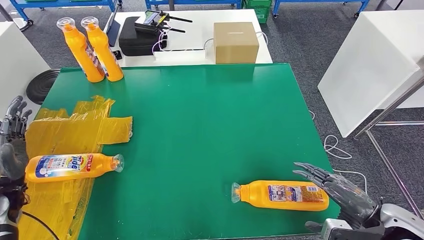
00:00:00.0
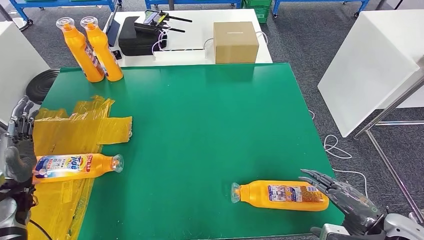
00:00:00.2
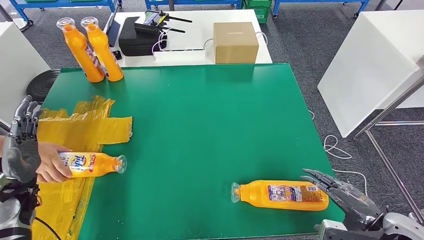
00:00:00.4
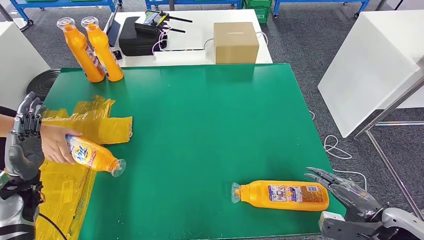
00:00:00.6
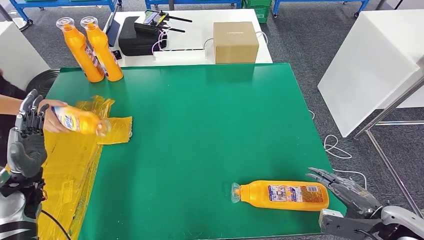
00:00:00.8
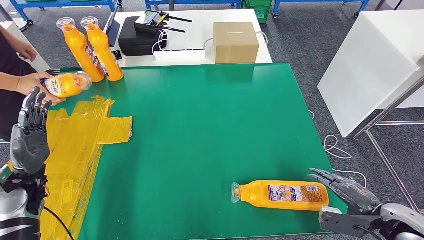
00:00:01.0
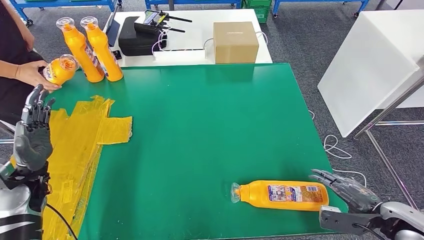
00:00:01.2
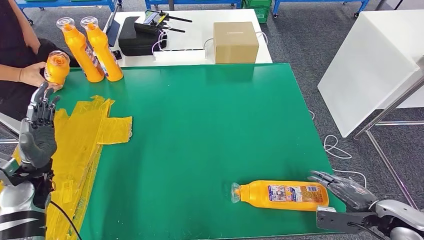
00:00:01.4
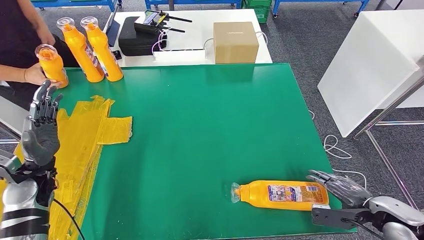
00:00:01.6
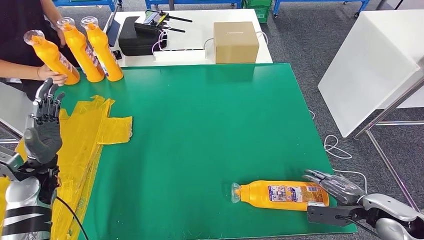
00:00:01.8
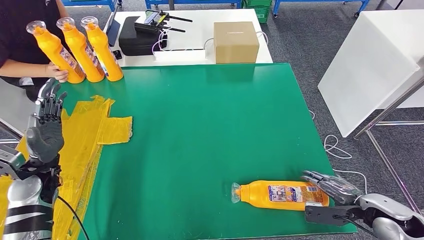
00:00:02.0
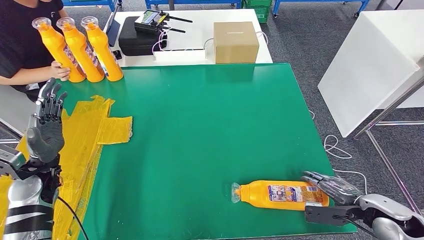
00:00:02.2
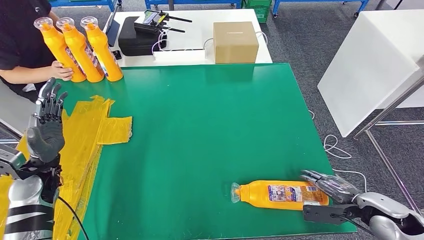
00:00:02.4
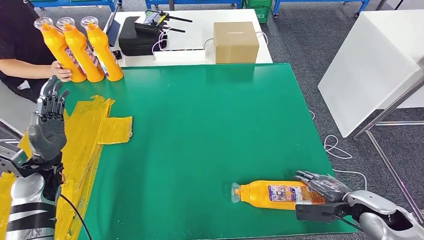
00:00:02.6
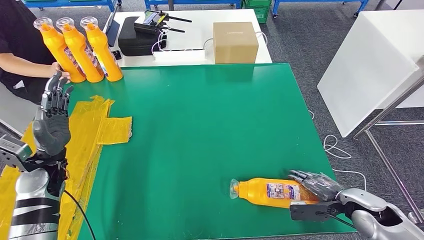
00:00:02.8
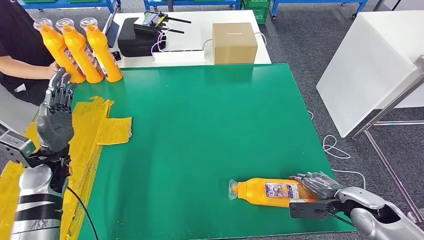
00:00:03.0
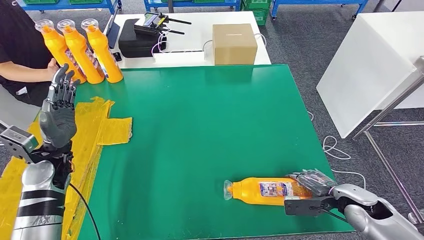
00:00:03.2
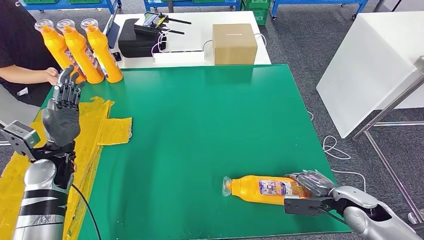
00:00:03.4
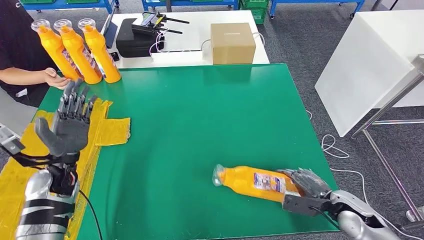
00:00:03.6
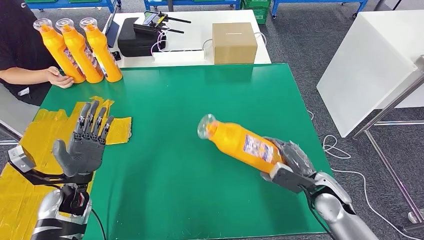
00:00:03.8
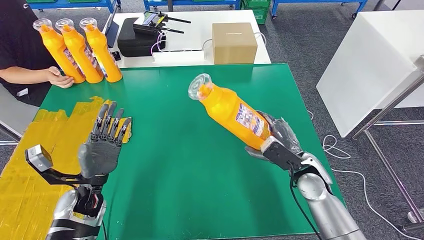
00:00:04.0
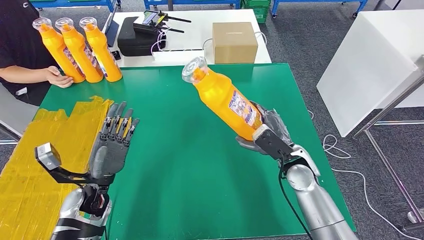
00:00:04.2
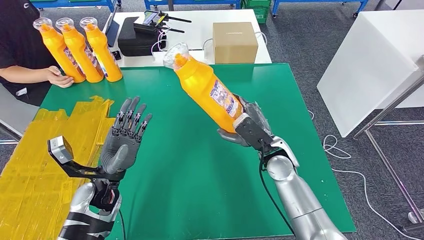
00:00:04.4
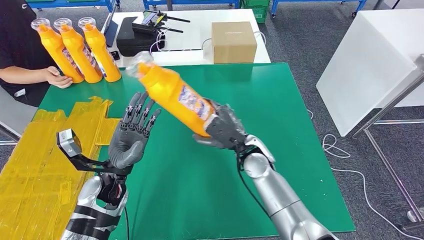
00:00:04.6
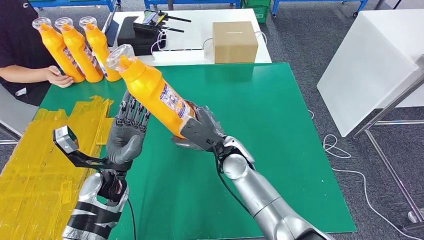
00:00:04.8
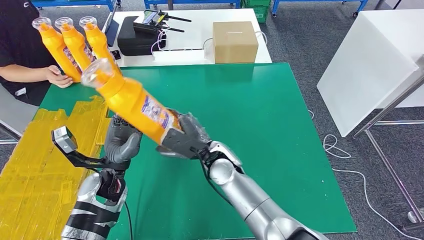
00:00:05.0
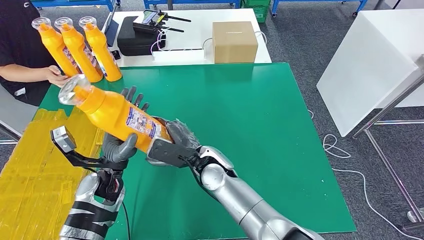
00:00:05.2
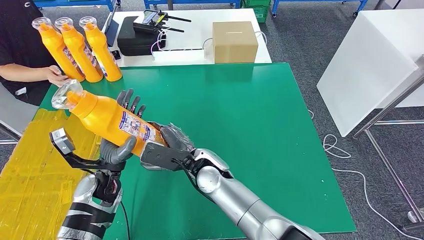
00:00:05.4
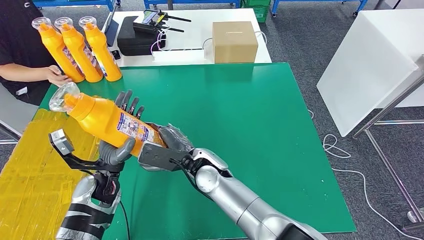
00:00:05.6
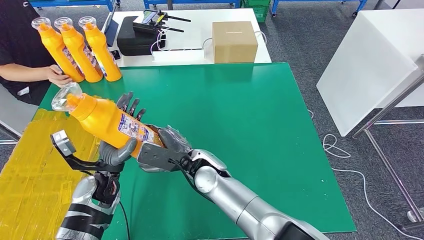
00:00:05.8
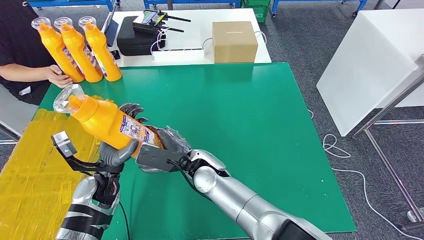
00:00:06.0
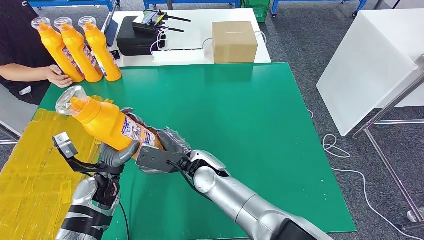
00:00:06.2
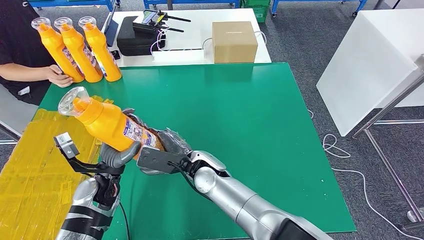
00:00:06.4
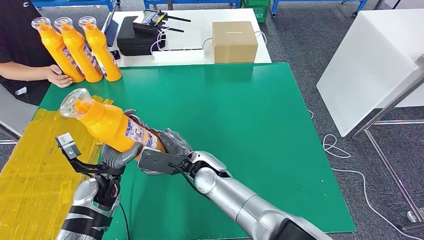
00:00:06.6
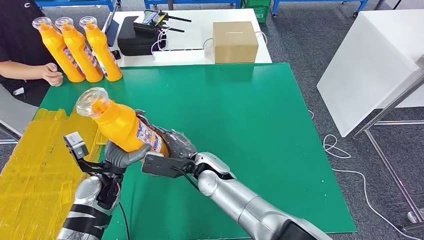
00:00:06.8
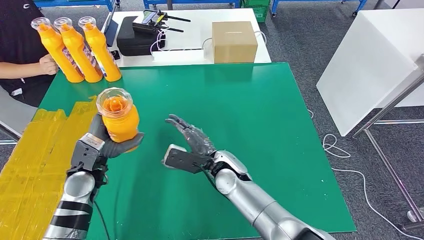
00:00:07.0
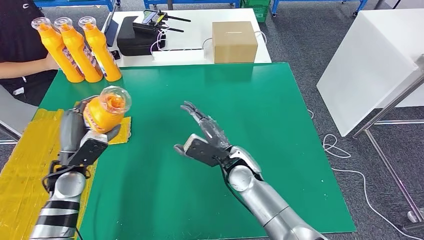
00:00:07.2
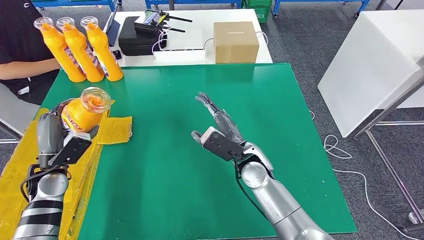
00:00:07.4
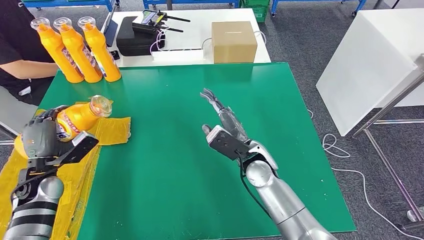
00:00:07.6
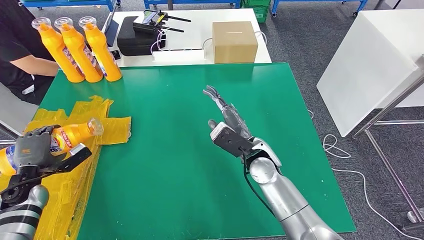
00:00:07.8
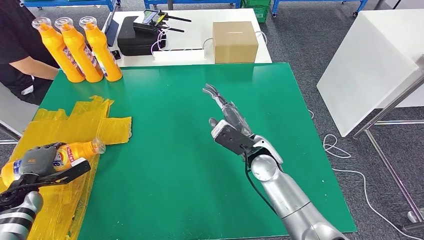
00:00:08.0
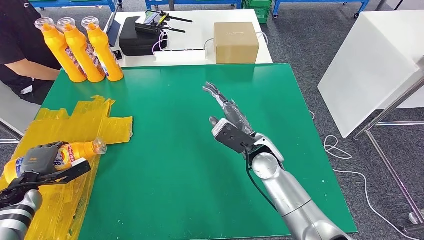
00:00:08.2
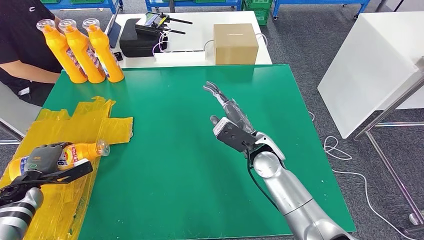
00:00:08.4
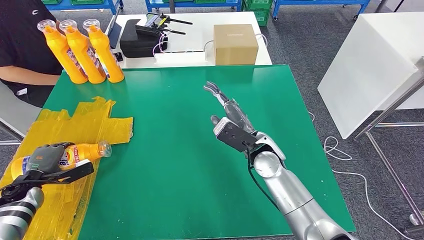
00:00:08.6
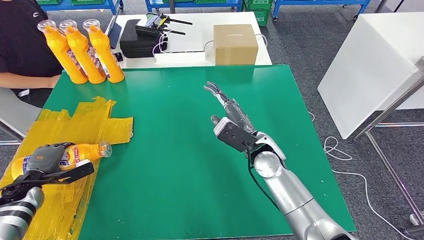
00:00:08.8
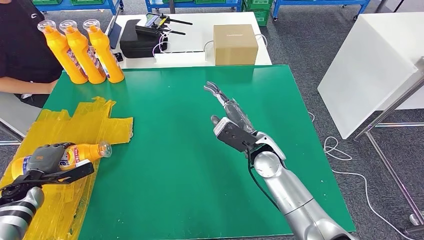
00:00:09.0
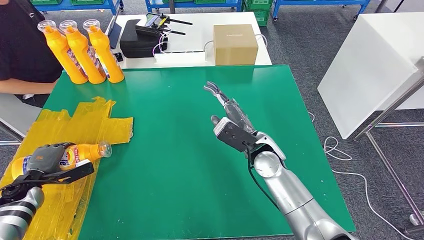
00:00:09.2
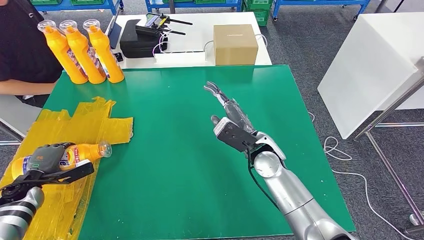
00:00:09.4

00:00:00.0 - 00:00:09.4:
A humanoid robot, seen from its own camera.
Step, 00:00:00.0 - 00:00:04.6: Pick up the fast-moving consumer goods bottle from the table.
Step, 00:00:04.8 - 00:00:09.4: Flip the fast-moving consumer goods bottle to the front side.
00:00:04.8 - 00:00:06.2: The right hand travels to the left by approximately 10 cm.
